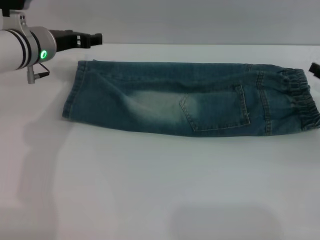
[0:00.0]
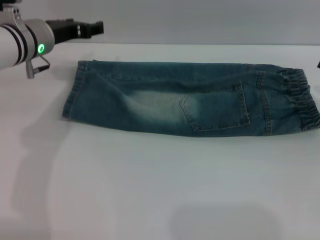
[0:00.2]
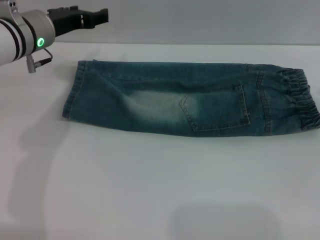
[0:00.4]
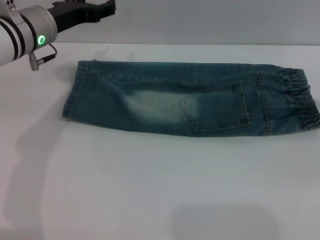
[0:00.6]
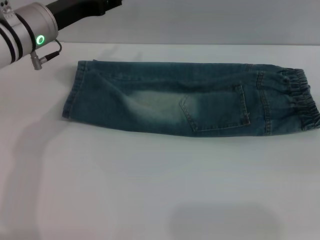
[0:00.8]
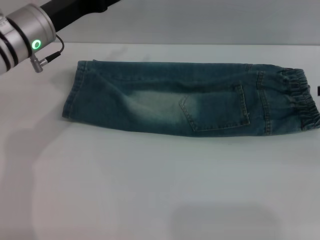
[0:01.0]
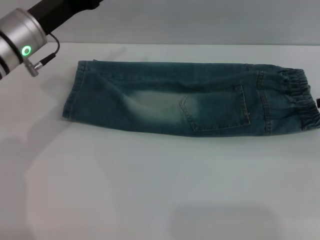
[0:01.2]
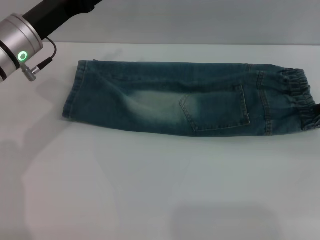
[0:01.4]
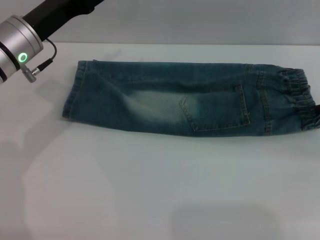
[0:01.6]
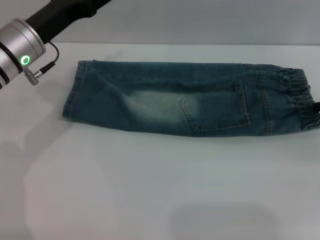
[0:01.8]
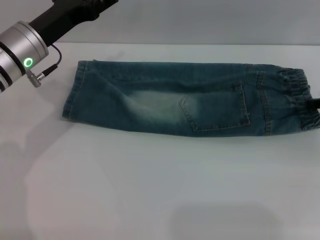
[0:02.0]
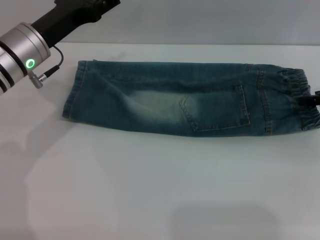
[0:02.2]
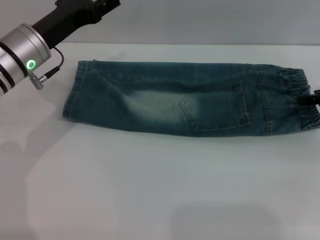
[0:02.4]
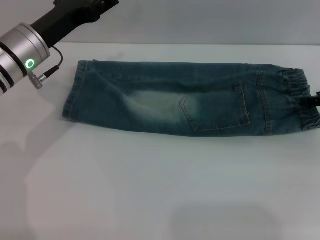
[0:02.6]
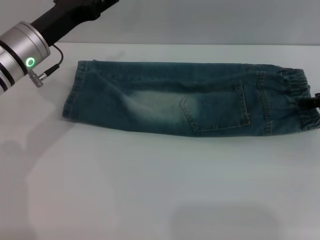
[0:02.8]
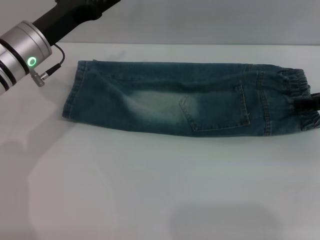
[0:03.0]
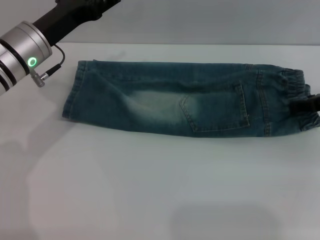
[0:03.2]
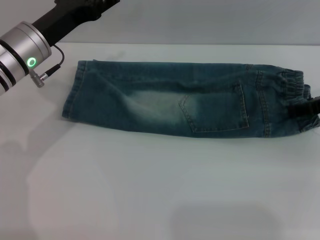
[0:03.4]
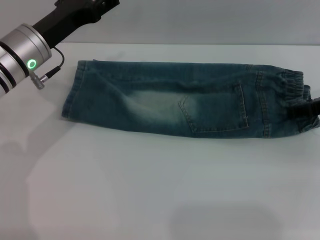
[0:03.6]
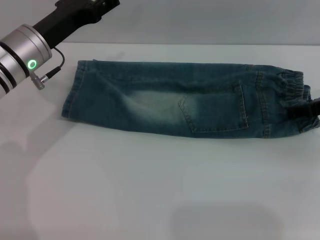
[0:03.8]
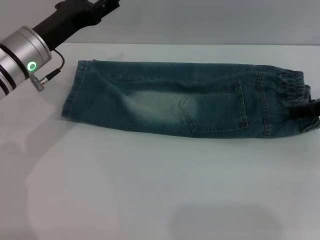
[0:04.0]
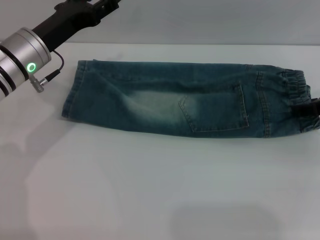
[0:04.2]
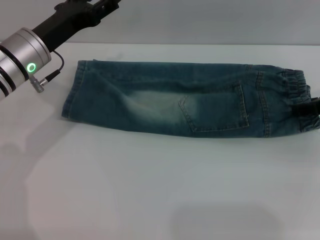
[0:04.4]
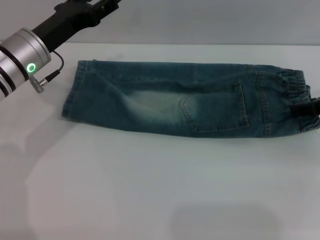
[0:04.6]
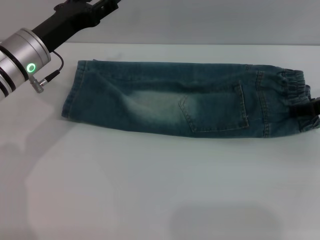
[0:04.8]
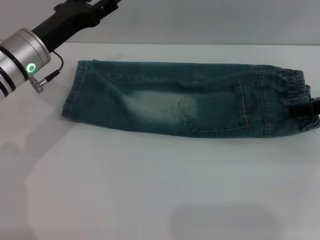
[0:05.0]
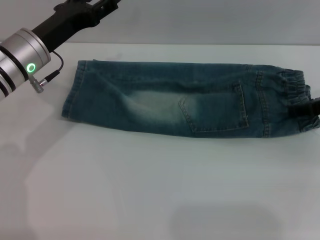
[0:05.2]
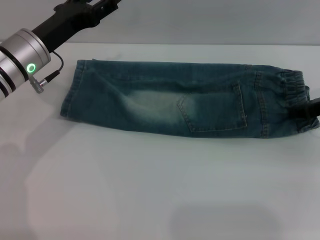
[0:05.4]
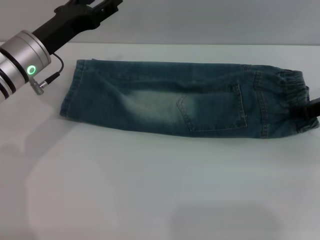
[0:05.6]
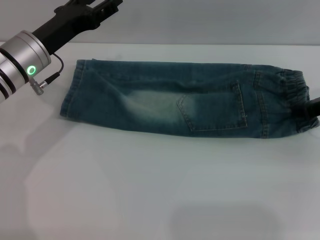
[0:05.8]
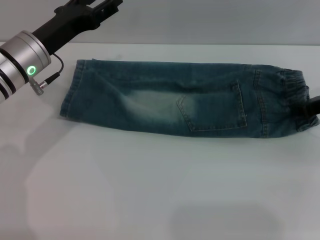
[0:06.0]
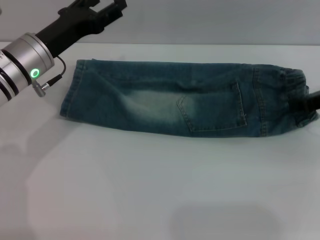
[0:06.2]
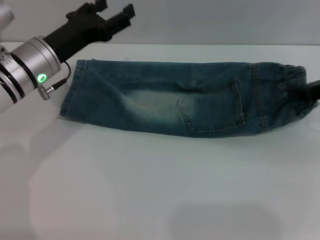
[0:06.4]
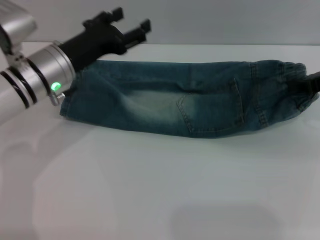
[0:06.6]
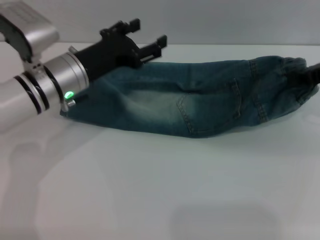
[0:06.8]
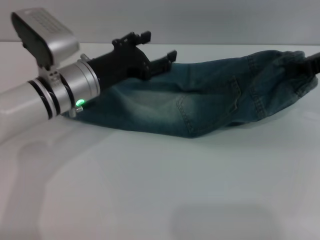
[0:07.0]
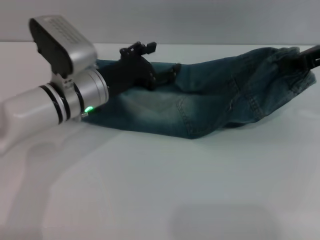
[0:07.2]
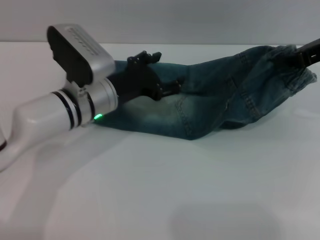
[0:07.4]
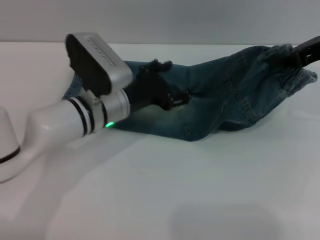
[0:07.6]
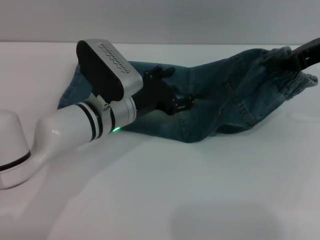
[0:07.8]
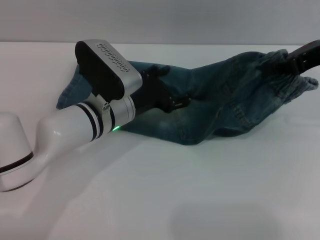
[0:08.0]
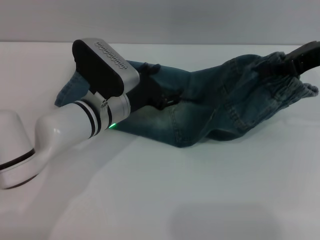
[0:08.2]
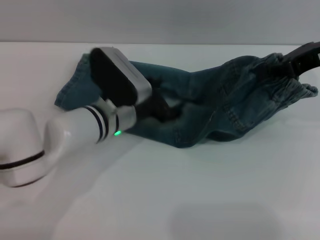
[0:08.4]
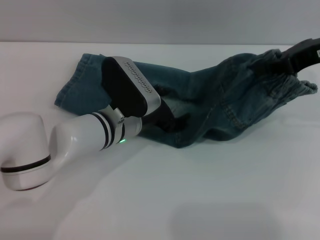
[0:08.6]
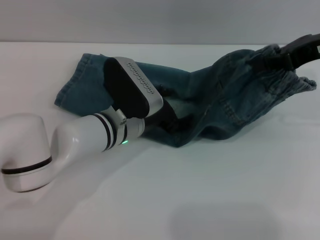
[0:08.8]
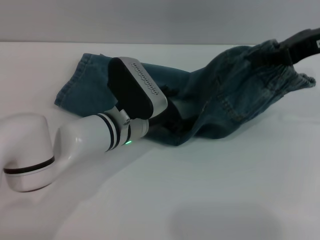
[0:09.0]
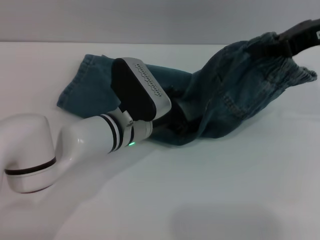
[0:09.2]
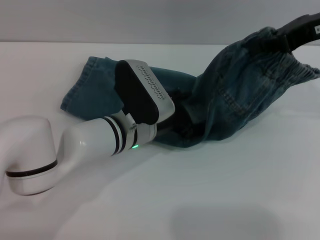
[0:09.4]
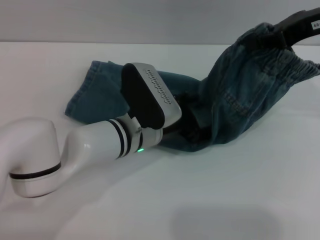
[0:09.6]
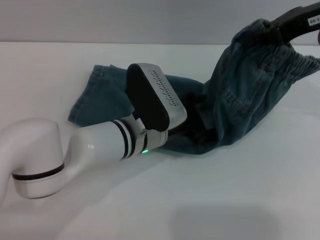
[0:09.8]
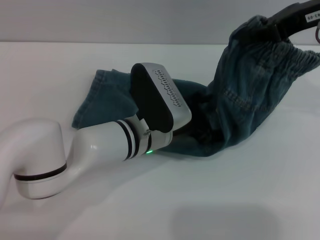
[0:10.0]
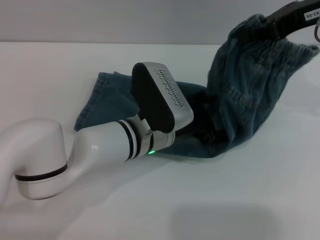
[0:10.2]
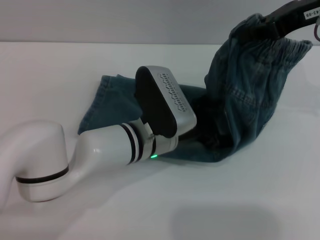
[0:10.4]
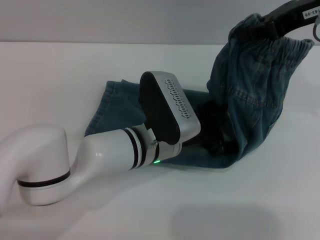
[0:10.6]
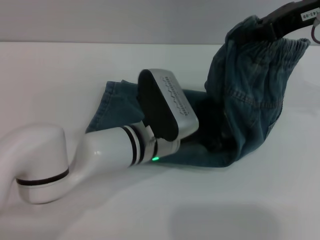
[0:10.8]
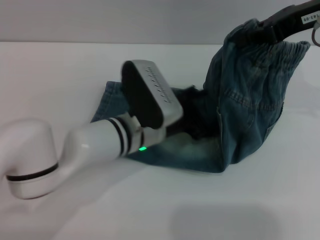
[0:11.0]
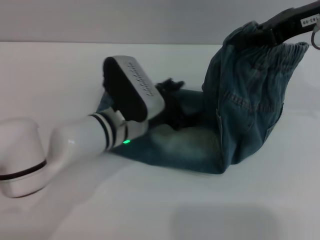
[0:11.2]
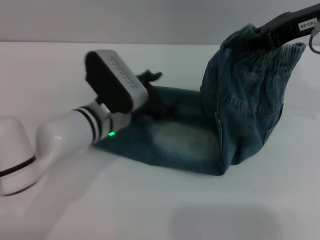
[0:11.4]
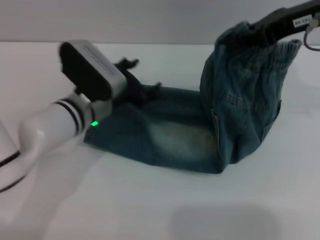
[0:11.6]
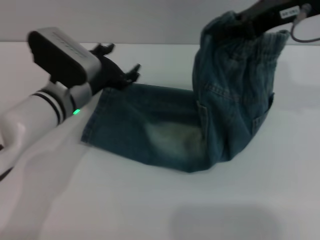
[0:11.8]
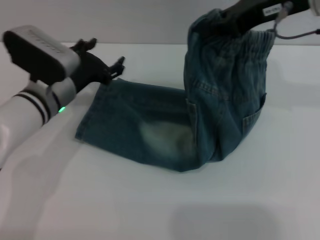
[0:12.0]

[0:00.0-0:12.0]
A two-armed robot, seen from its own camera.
0:00.0 to 0:01.6: The left gripper is displaced backward by about 5 cm.
0:01.6 to 0:03.0: There are only small adjustments of the grippers.
0:03.0 to 0:04.4: Both grippers stay about where they are.
0:06.0 to 0:07.6: The right gripper goes approximately 10 cm upward. Meanwhile the left gripper heads to the right and downward, covering approximately 10 cm.
0:07.6 to 0:09.0: The grippers stay close to where they were, moving slightly.
0:10.4 to 0:12.0: The left gripper shifts some 15 cm to the left.

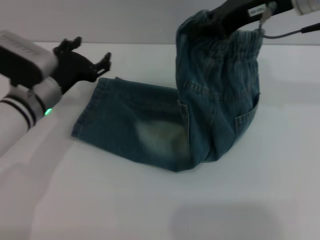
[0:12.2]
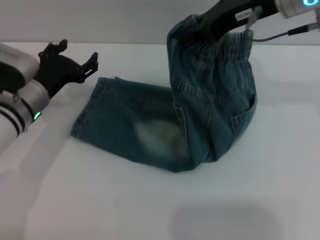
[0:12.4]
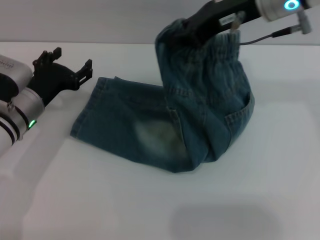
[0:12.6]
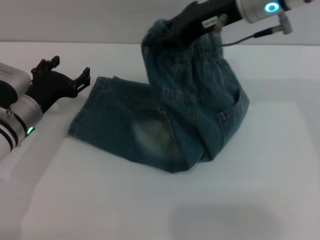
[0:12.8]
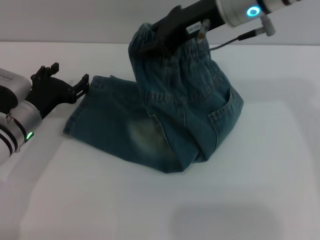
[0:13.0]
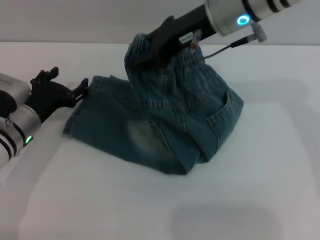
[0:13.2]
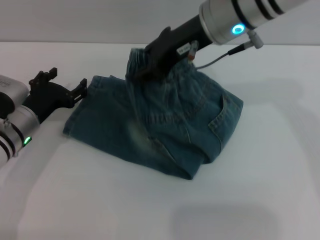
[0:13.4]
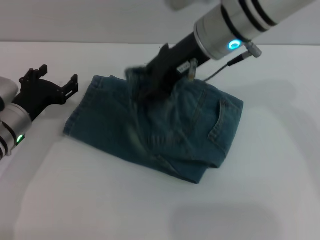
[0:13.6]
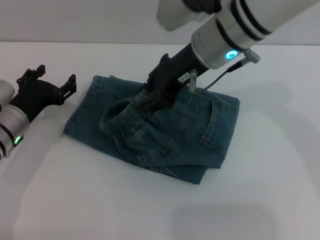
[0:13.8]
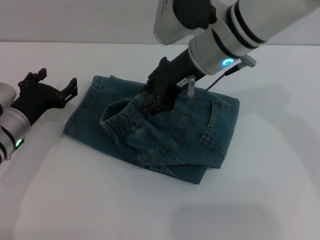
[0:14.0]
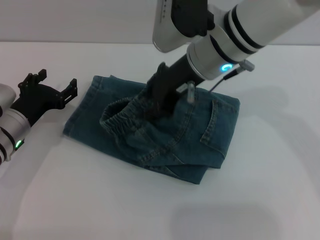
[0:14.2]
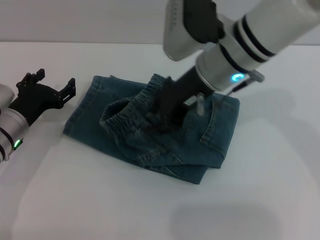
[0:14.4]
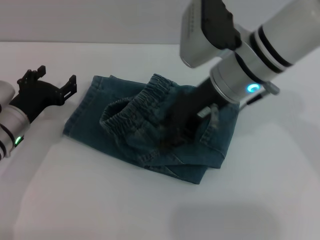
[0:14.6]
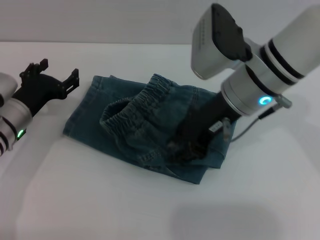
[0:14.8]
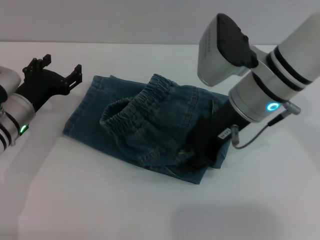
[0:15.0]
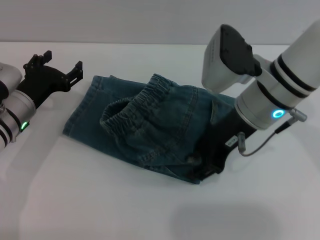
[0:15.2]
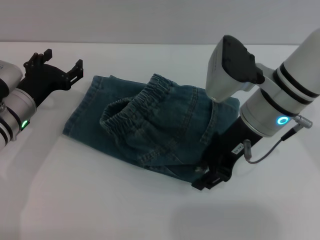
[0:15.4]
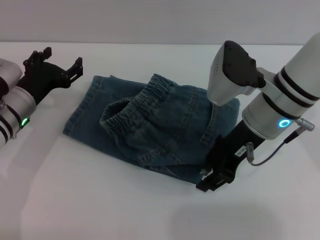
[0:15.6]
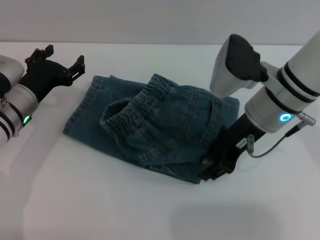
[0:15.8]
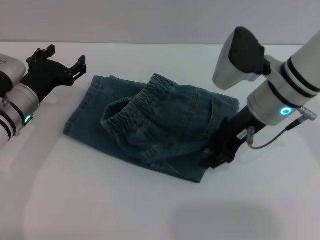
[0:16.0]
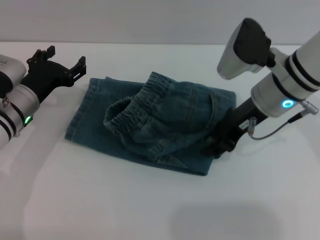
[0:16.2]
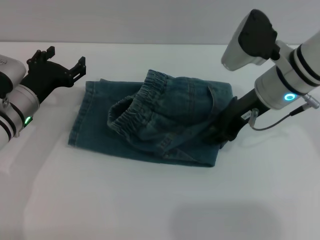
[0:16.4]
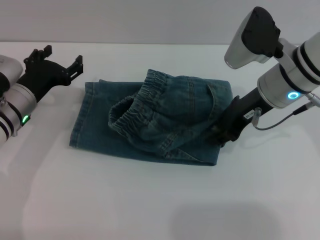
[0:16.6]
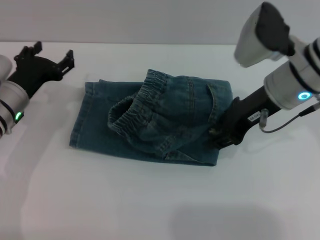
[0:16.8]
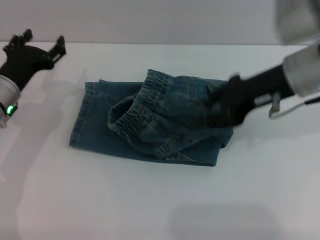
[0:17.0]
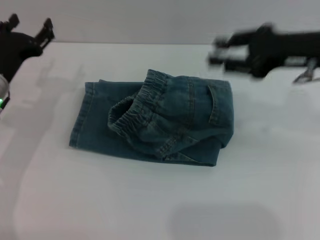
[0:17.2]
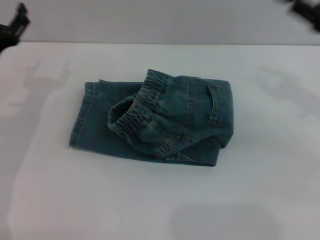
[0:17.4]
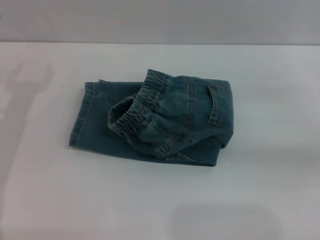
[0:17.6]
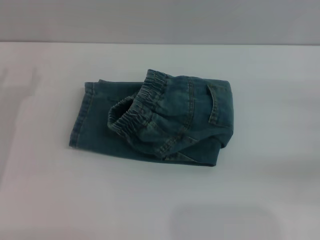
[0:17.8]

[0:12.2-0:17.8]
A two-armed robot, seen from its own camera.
Step, 0:12.2 to 0:15.0: Fold the pants from right to left with the right gripper.
0:12.2 to 0:13.6: The left gripper ends up approximately 5 cm from where it was. The right gripper shifts roughly 10 cm to the left, and opens its fingers.
0:13.6 to 0:15.0: The right gripper moves downward, some 5 cm.
0:15.0 to 0:16.4: The right gripper ends up approximately 5 cm from where it was.
0:16.4 to 0:17.8: The left gripper moves to the left, about 10 cm. Meanwhile the right gripper shifts approximately 25 cm to the right.

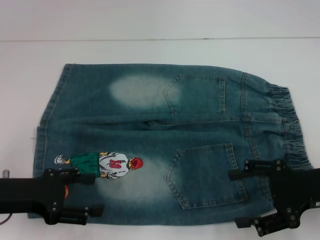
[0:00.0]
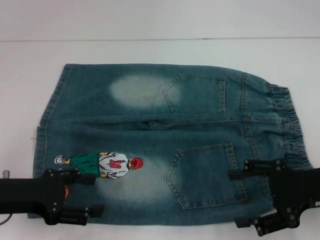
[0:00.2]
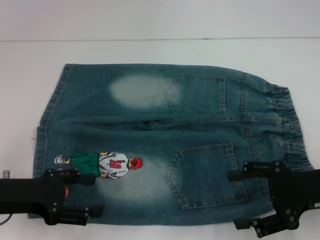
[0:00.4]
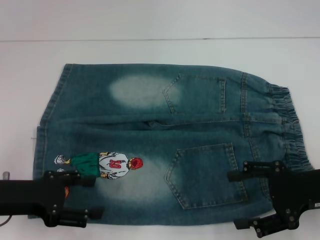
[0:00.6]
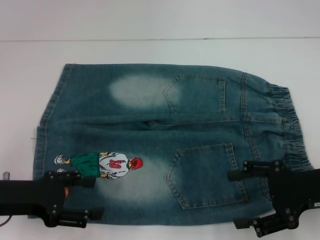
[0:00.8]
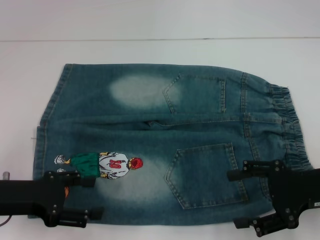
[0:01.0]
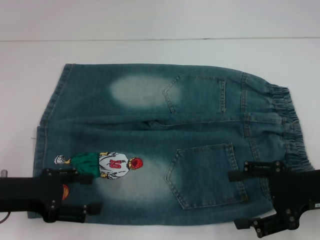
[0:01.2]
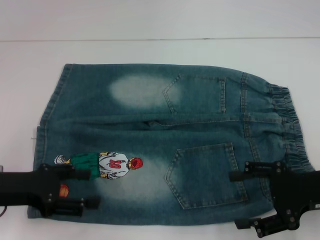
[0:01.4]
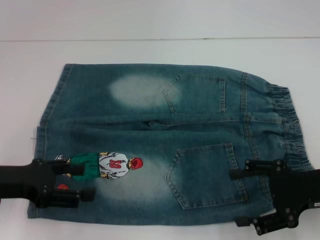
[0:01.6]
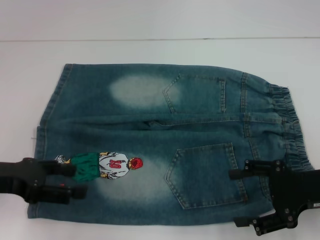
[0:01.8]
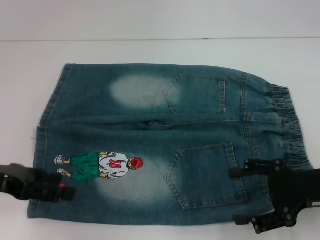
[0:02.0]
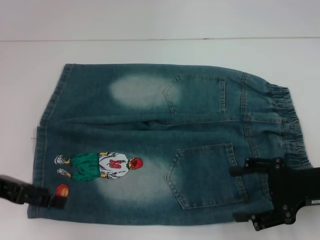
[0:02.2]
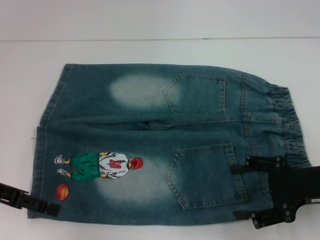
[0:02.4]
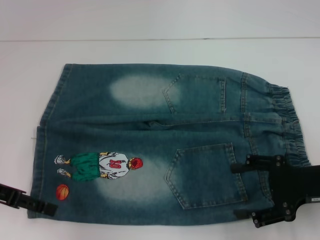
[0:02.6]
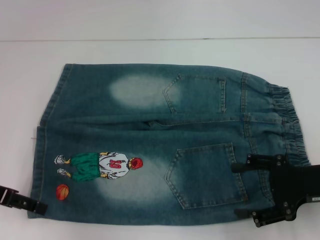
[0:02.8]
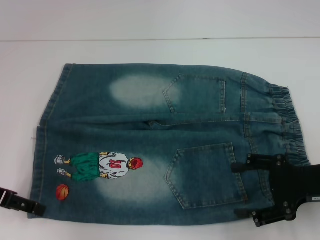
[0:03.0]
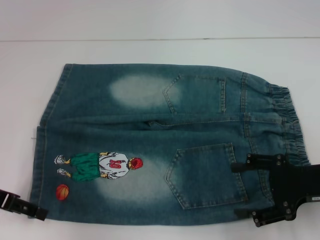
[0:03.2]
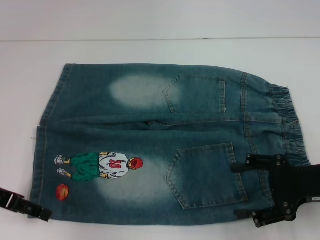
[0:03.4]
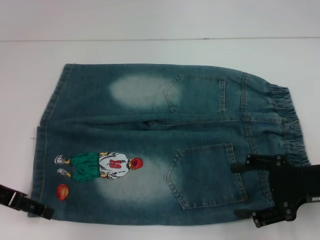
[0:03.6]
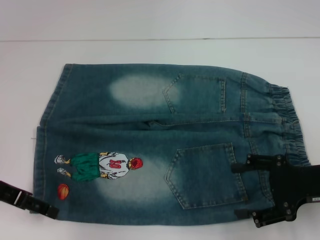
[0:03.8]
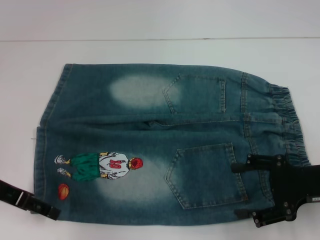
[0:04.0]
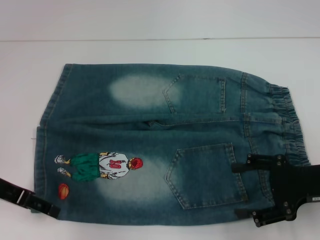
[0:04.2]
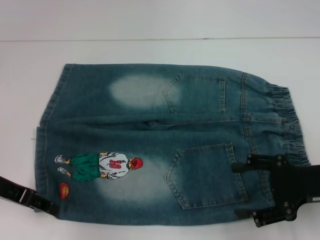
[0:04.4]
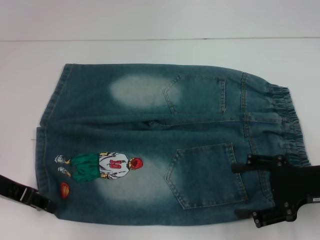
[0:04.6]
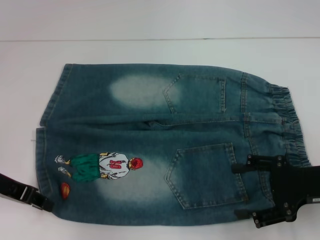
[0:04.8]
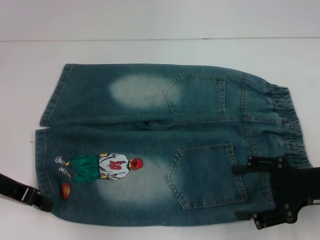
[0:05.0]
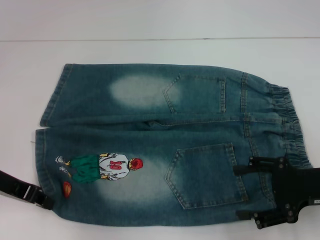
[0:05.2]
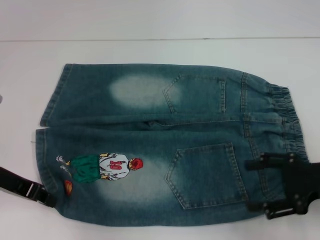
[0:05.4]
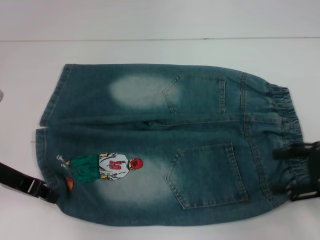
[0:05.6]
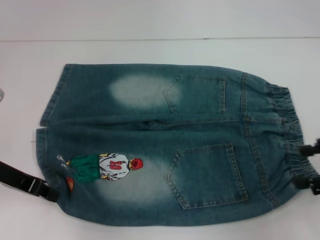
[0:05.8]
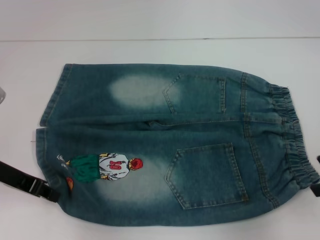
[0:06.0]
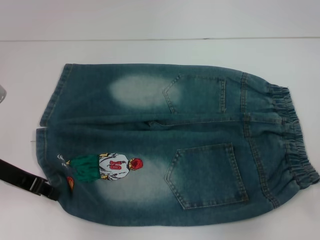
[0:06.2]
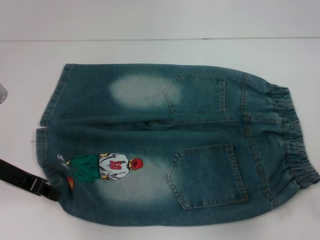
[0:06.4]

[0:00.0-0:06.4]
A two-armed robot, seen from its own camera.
Step, 0:00.0 to 0:04.2: Grab the lower left pant leg with your left hand.
0:00.0 to 0:01.6: The grippers move only a little.
0:03.2 to 0:04.8: The left gripper closes its fingers.
0:04.8 to 0:06.4: The right gripper travels upward and to the right by some 10 cm.
